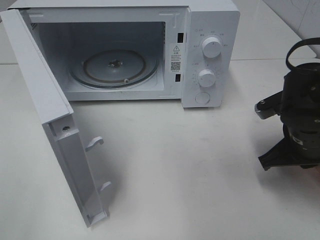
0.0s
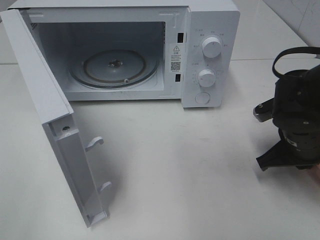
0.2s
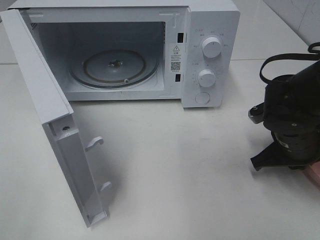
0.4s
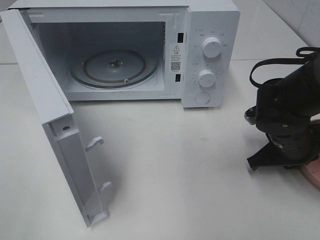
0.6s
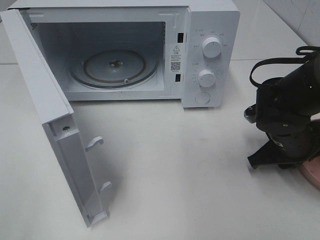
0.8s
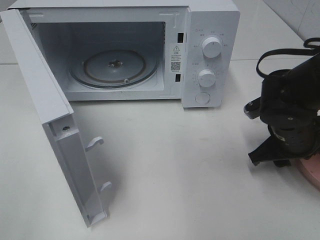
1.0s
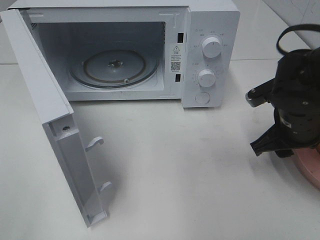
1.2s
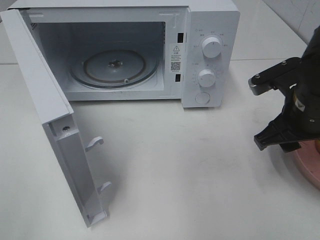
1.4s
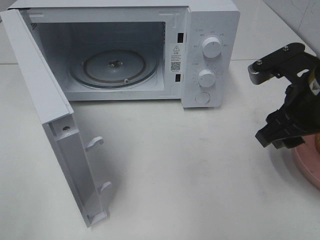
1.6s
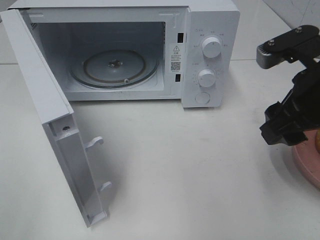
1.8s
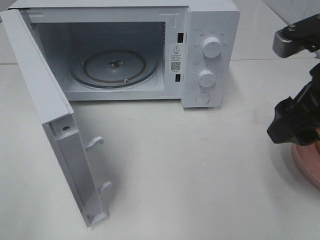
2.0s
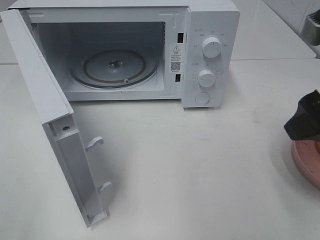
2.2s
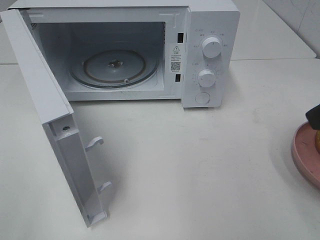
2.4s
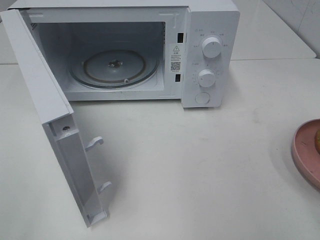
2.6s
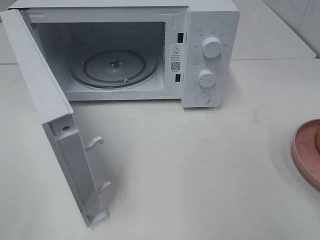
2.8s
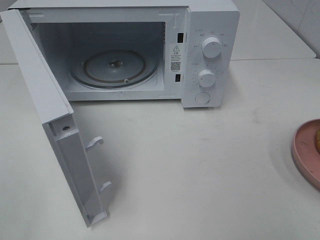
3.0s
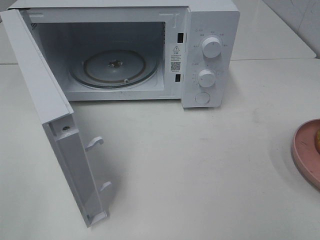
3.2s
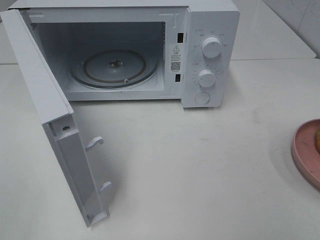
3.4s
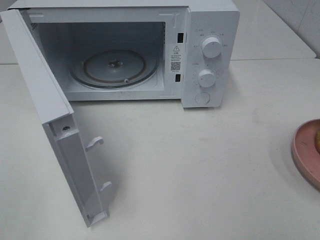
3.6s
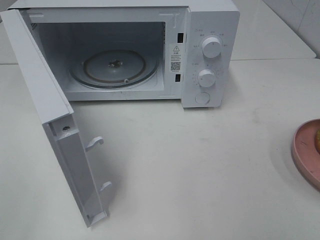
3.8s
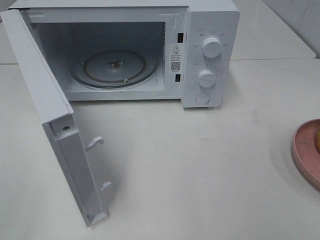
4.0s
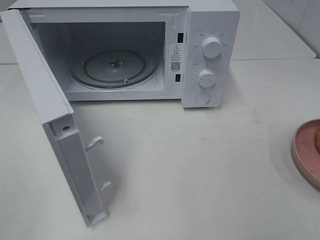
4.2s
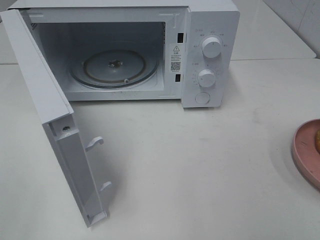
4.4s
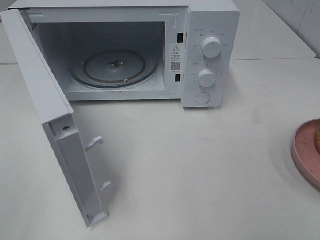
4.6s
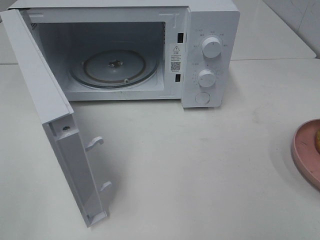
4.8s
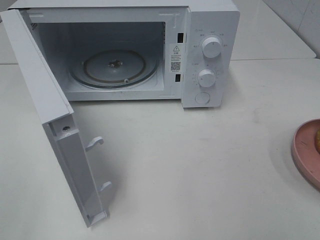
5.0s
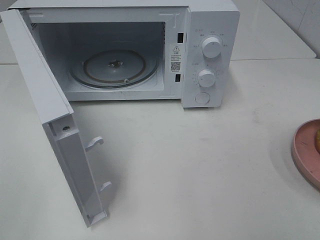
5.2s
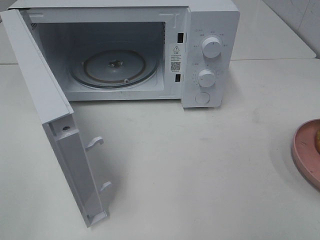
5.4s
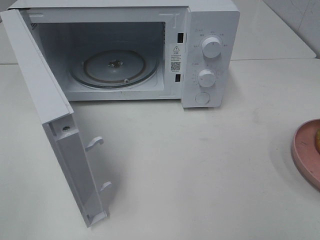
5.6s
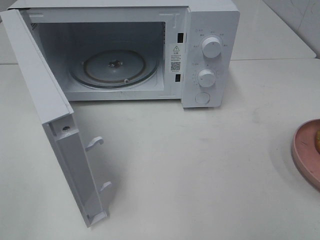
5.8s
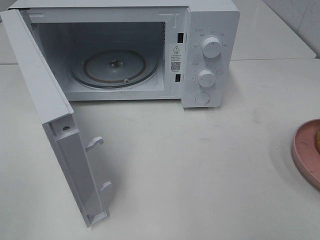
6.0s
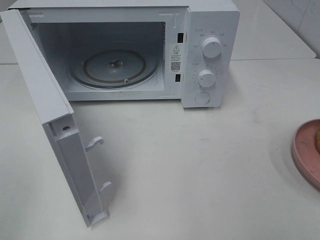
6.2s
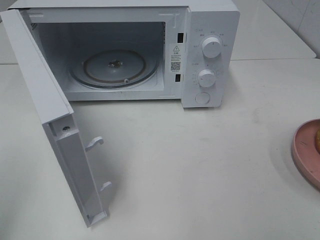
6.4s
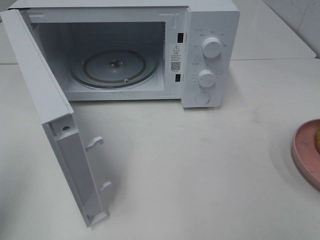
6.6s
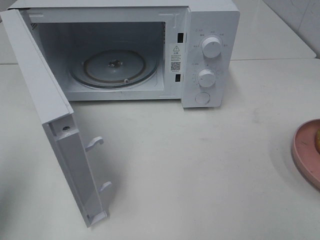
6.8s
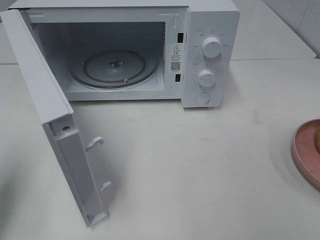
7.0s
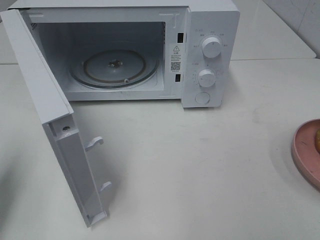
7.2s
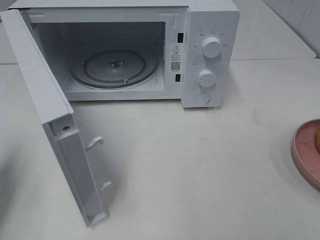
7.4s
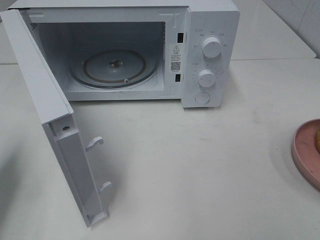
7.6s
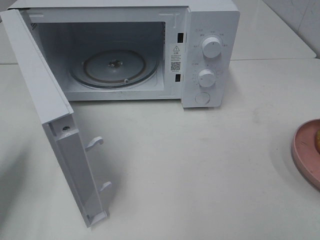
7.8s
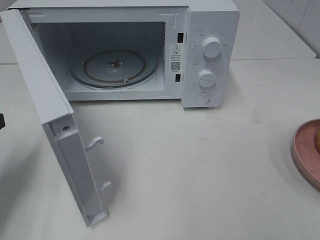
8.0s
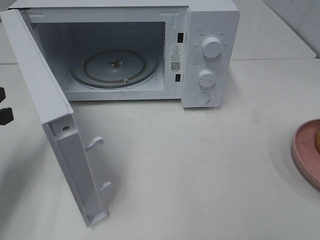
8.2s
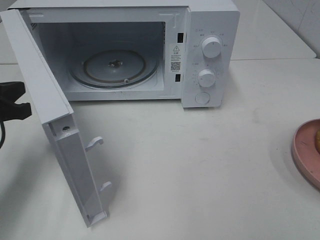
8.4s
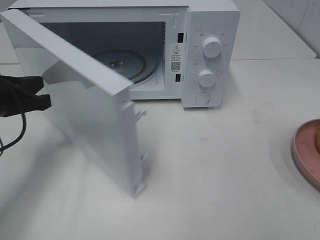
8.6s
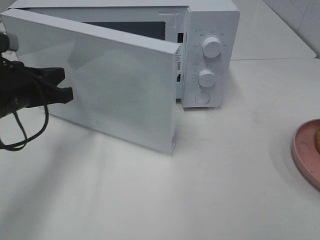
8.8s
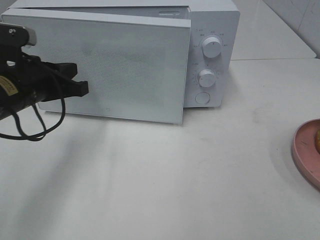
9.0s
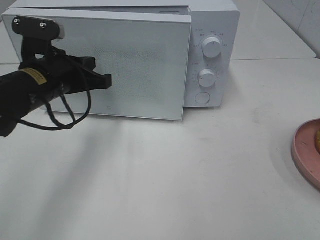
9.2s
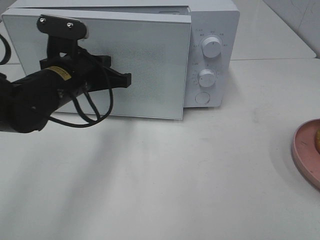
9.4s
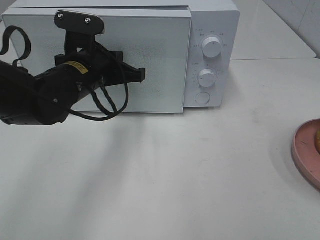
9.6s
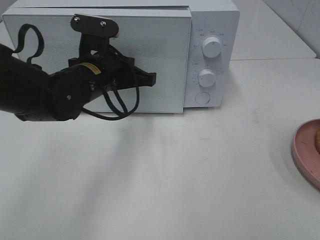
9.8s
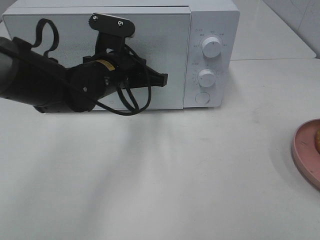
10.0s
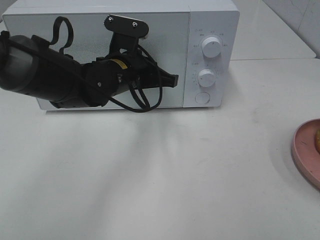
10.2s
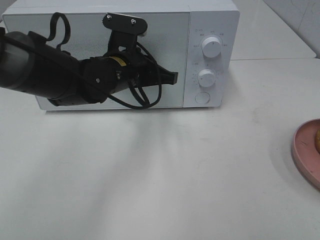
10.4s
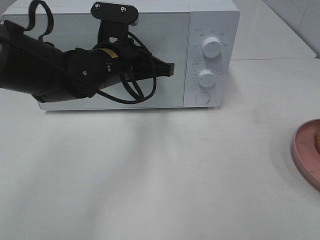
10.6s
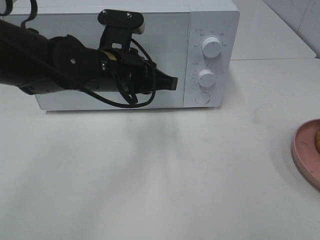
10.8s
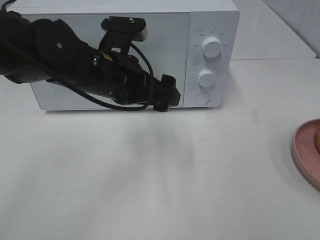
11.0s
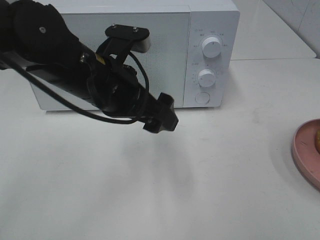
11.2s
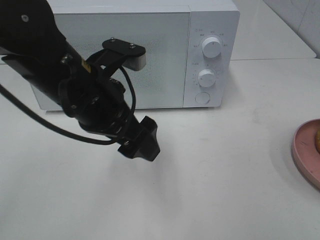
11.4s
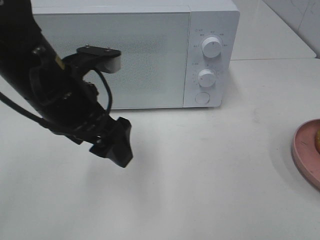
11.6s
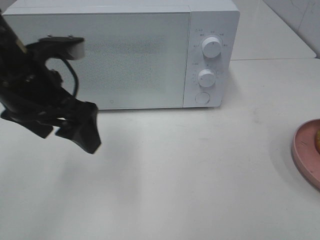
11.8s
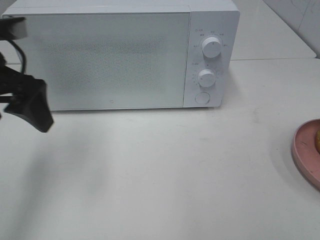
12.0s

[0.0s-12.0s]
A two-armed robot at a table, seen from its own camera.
Task of the whole recording: Heat the burger.
Step, 1.2s to 11.0s: Left hand: close the microwave door.
0.0s to 1.6s: The right gripper heads upward, covering approximately 10 cm, and opens up.
1.6s to 3.0s: The right gripper travels backward, to the right and upward by some 20 cm.
6.0s to 7.6s: The left gripper heads forward and downward, covering roughly 20 cm, and closes up.
7.6s to 9.0s: The left gripper heads to the right and forward, covering about 15 cm.
9.0s to 10.4s: The left gripper goes roughly 15 cm to the right and forward.
10.4s to 12.0s: The left gripper goes approximately 20 cm to the left, upward and backward, and opens.

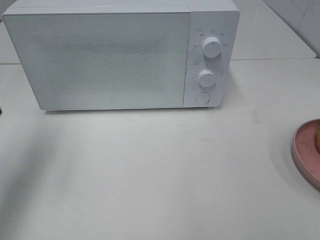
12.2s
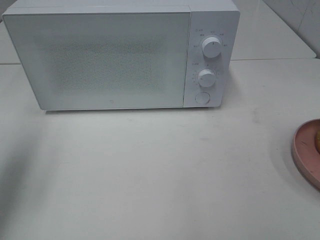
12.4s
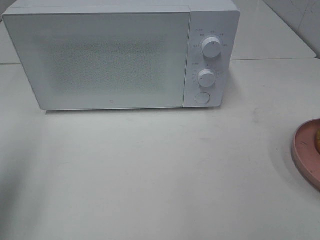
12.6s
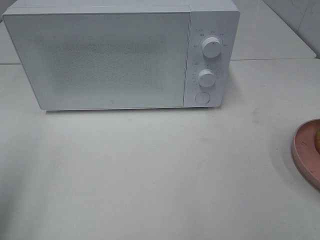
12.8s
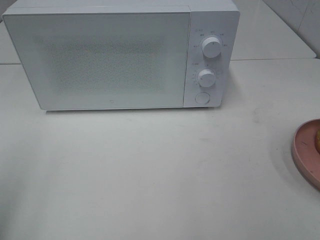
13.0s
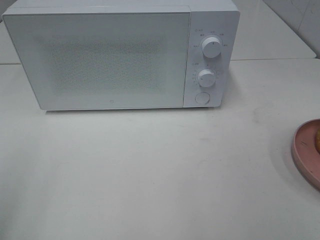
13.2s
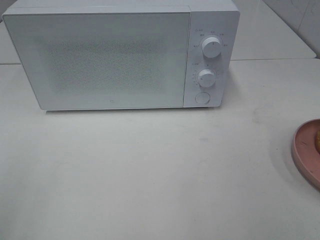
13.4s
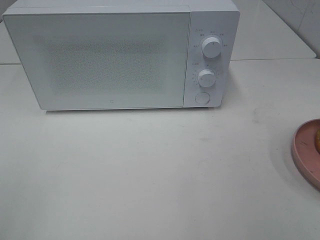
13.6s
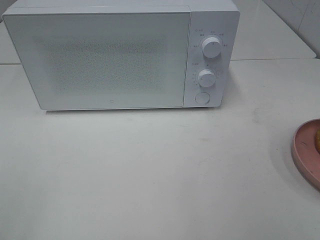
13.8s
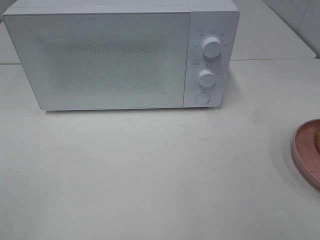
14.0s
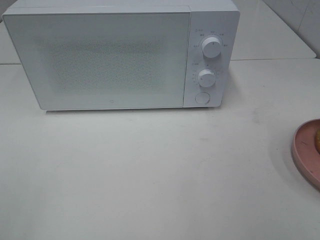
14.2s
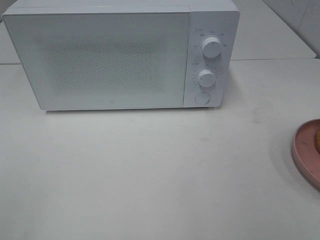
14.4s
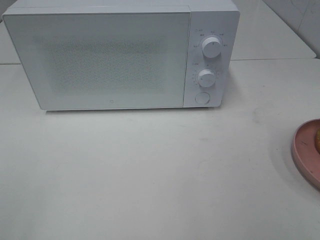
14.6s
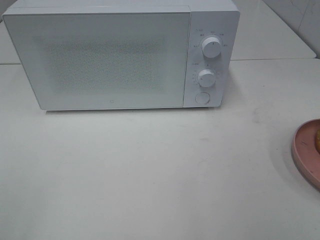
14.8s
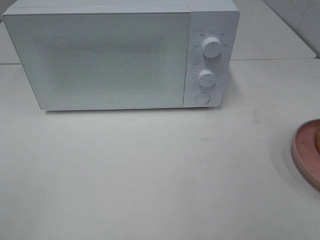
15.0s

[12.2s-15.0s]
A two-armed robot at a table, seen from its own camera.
Task of the whole recording: Heat the burger.
12.2s to 13.6s: The left gripper is displaced backward by about 25 cm.

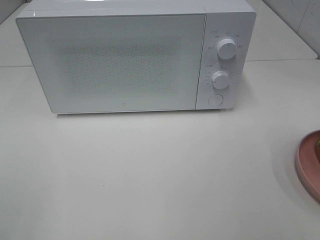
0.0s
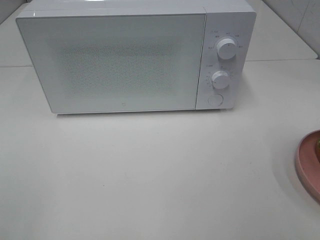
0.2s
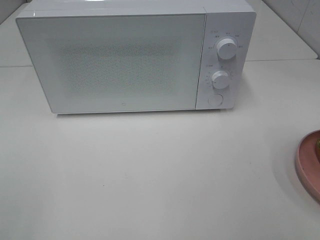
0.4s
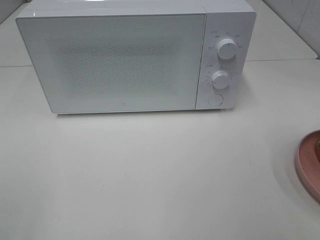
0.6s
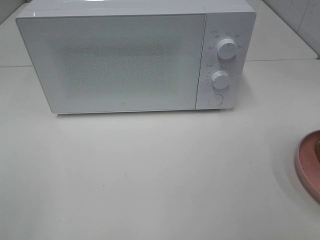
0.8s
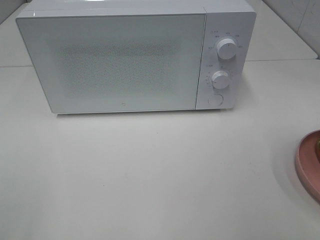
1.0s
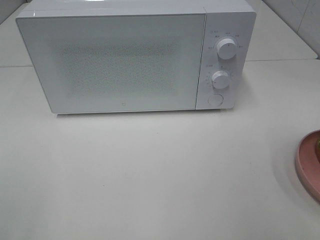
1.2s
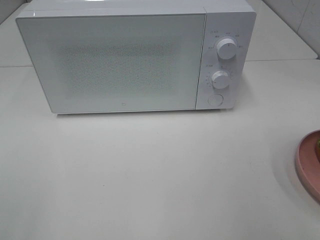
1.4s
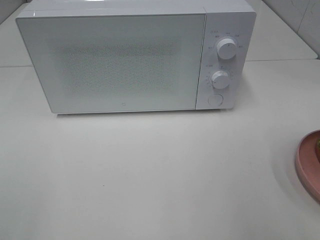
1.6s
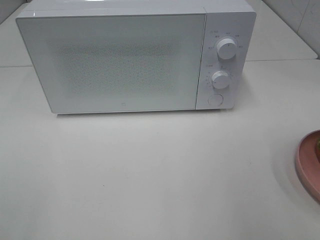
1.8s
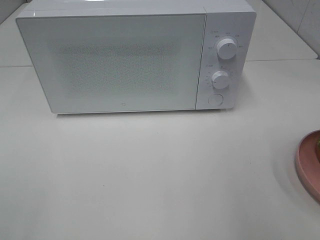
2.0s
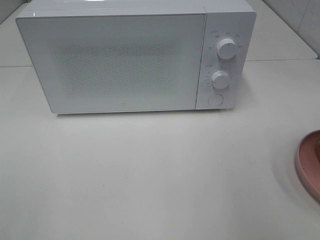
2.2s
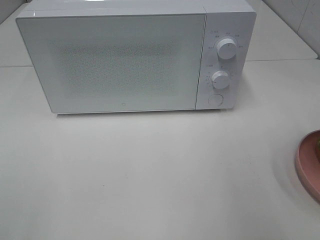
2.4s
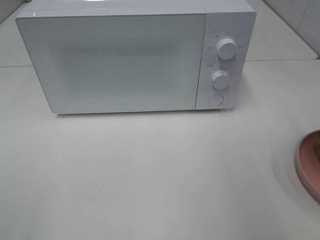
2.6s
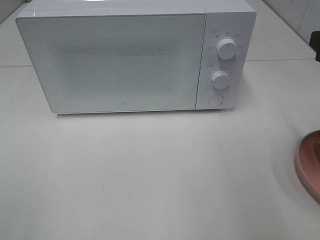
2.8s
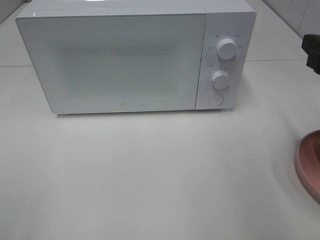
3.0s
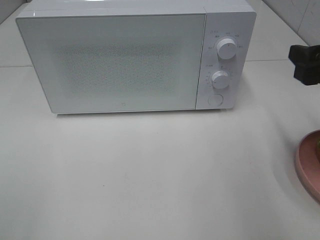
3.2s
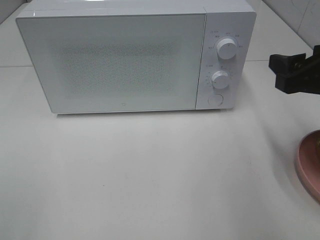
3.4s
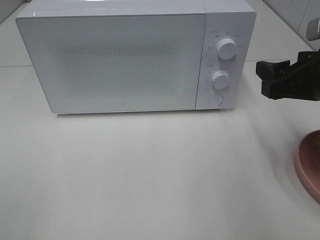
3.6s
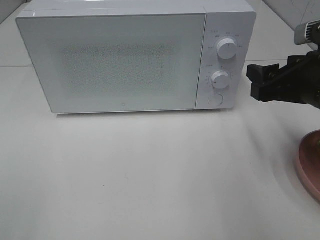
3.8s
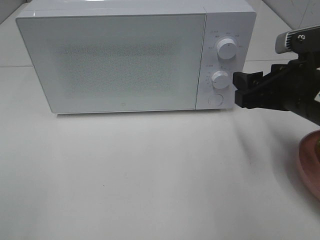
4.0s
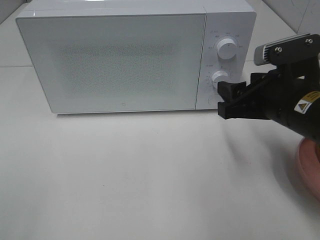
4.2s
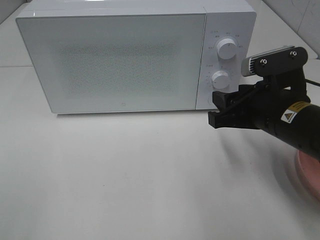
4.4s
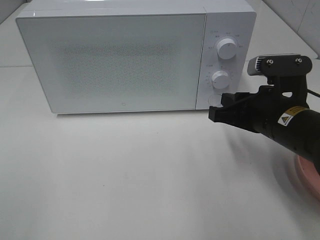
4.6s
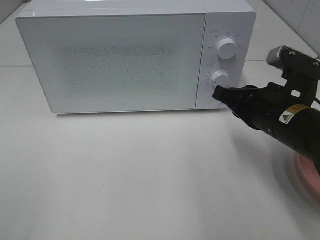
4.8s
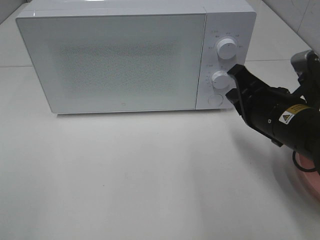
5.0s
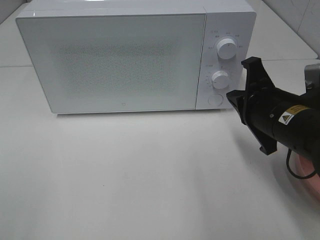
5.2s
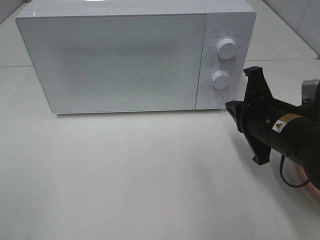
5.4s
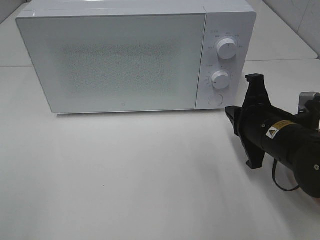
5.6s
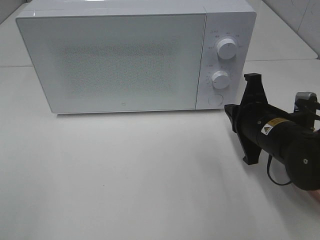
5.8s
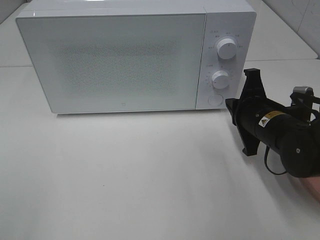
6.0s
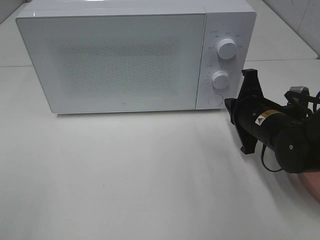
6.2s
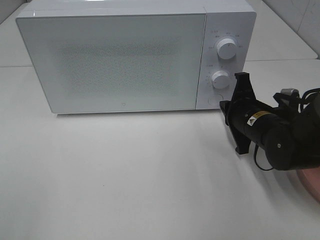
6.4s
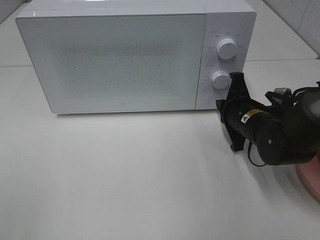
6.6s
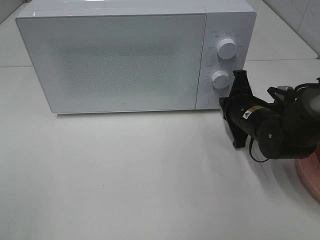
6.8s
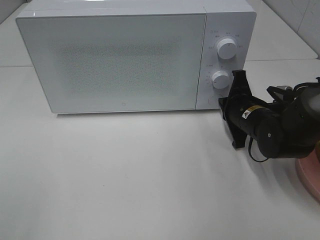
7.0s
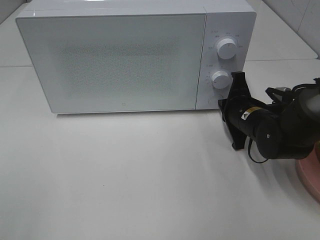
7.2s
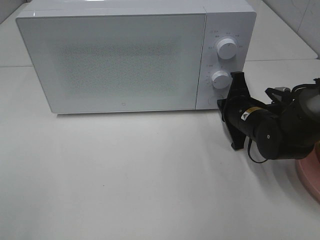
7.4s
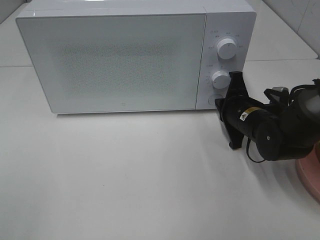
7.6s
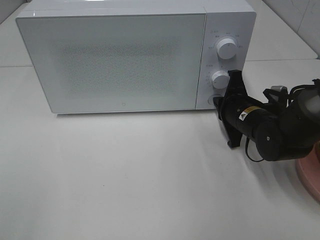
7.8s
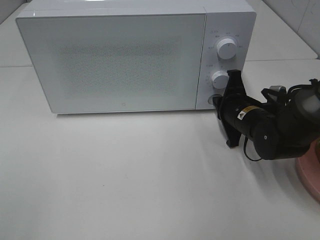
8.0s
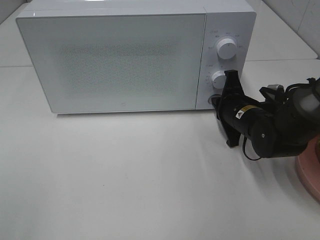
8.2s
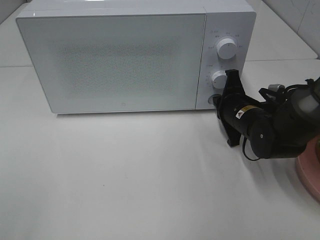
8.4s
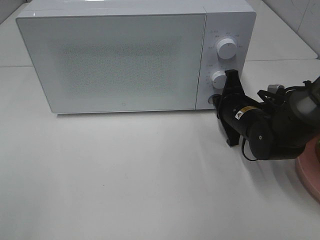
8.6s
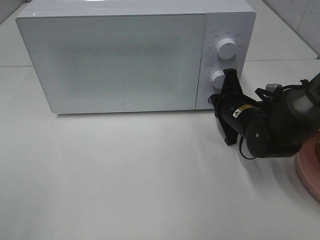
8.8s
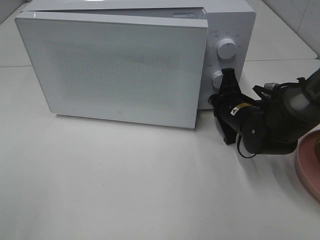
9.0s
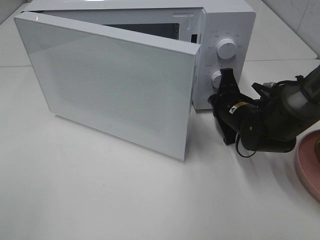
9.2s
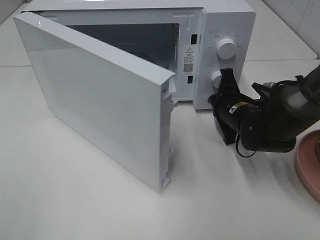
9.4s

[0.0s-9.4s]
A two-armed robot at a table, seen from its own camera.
Task of the whole recording: Heat the burger.
1.6s to 3.2s: The right gripper moves forward and downward, some 15 cm.
3.2s to 4.8s: The right gripper heads to the left and downward, covering some 10 cm, and closes its fingers.
4.8s to 6.2s: The right gripper is displaced downward and forward by roughly 10 cm.
6.2s to 7.8s: There are only small adjustments of the grippers.
